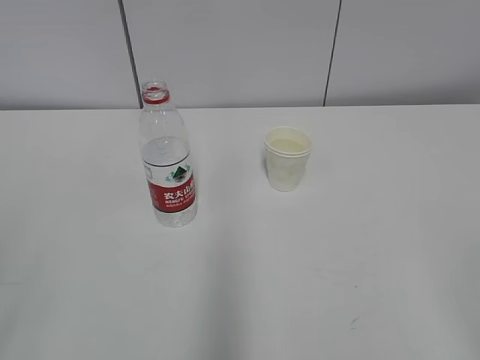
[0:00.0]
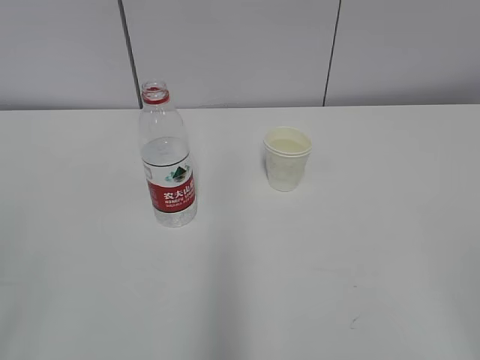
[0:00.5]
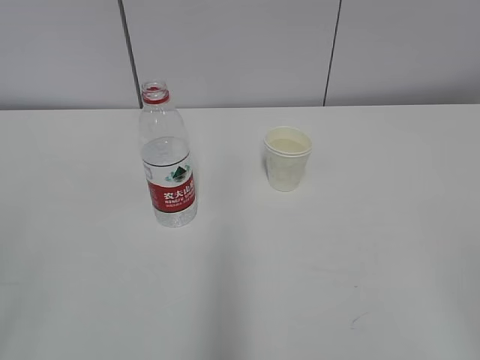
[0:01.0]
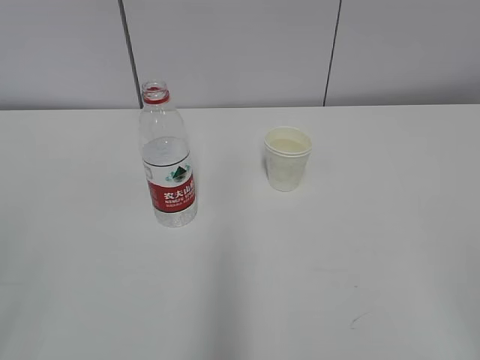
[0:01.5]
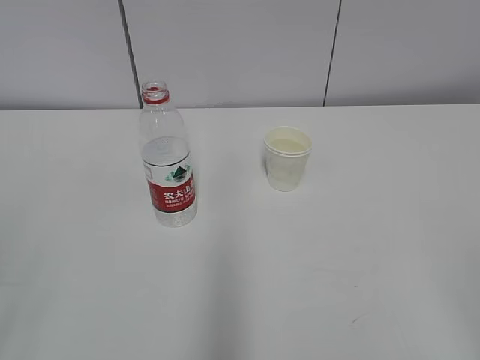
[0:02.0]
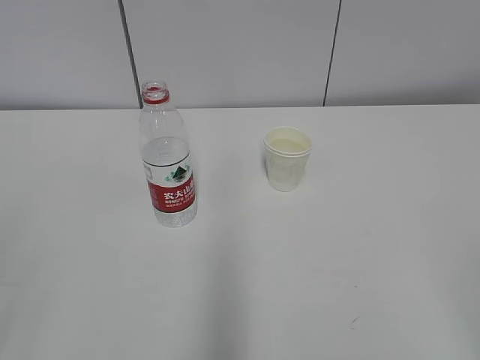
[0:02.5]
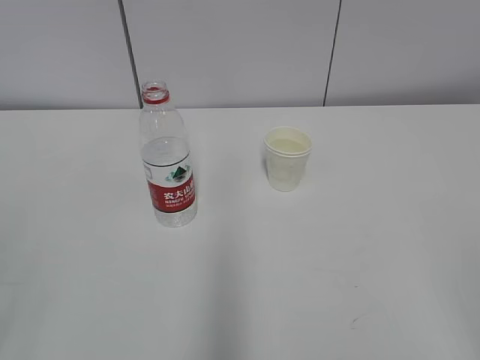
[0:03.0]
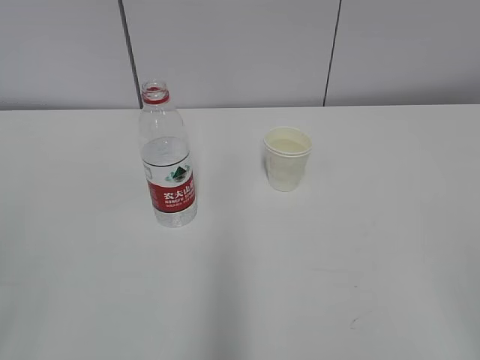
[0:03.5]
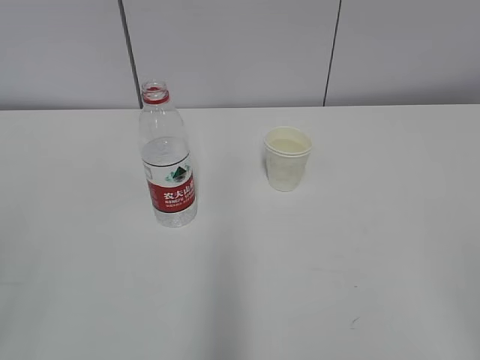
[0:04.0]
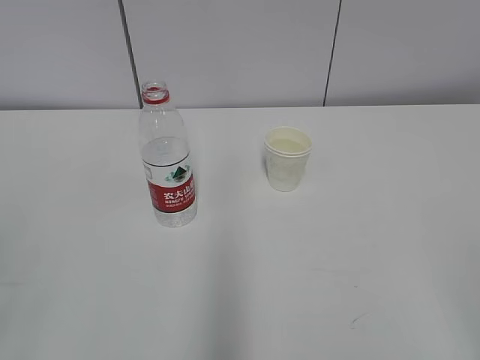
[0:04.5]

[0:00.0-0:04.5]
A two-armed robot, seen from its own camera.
0:00.0 to 0:04.5: The two grippers keep their place.

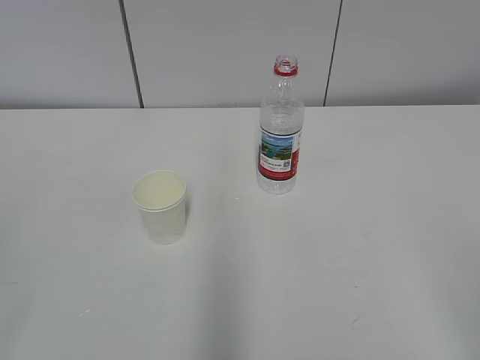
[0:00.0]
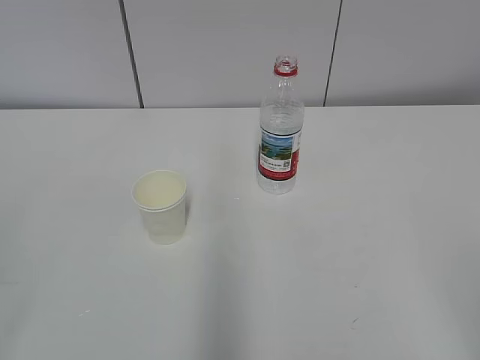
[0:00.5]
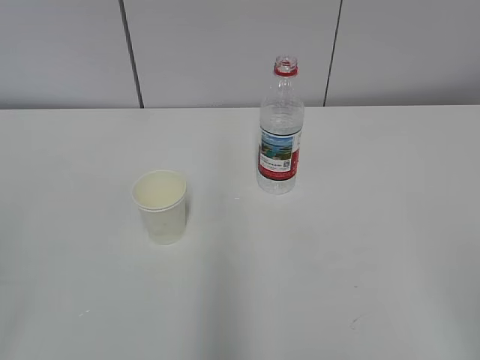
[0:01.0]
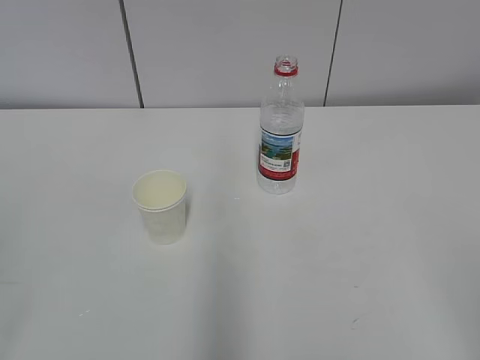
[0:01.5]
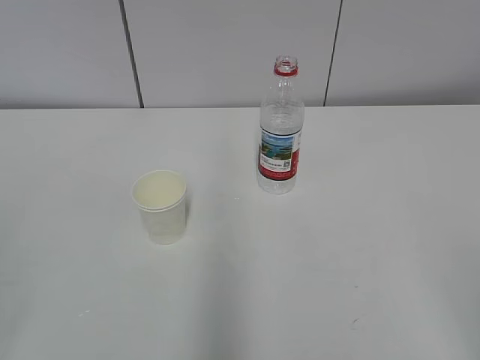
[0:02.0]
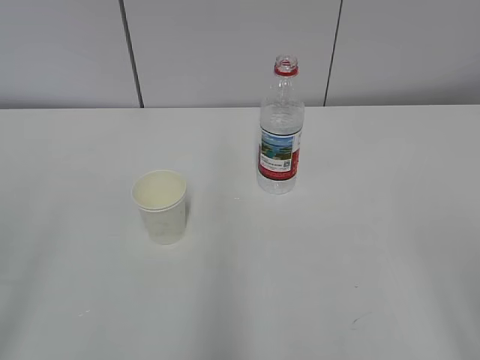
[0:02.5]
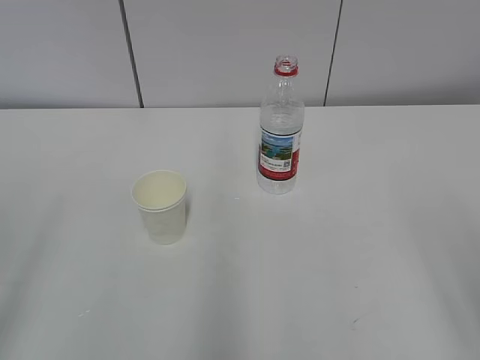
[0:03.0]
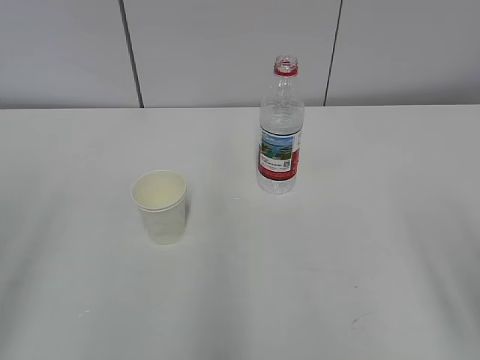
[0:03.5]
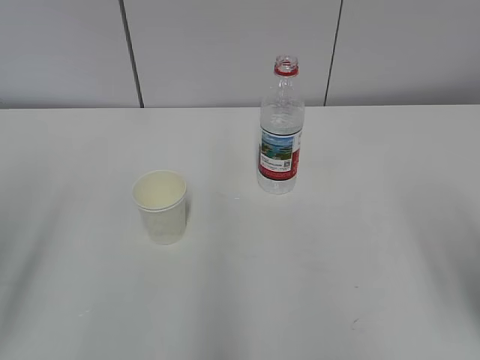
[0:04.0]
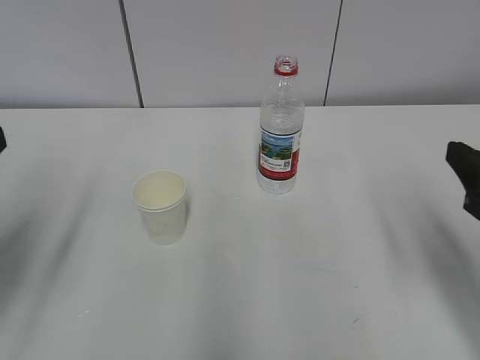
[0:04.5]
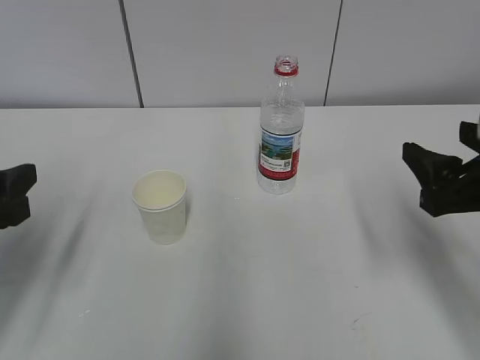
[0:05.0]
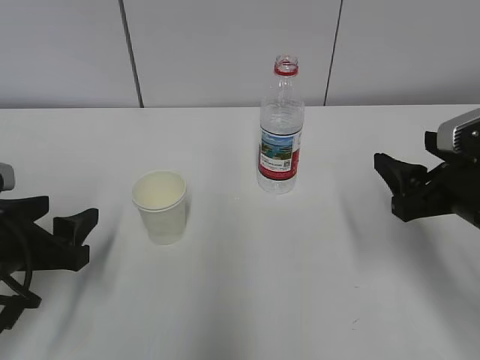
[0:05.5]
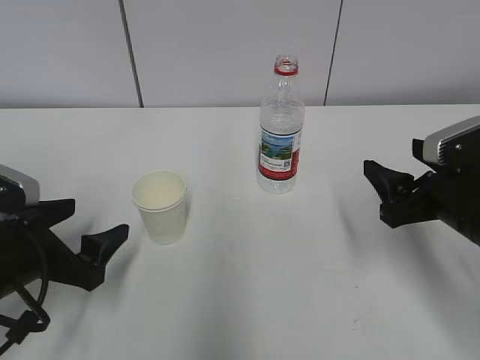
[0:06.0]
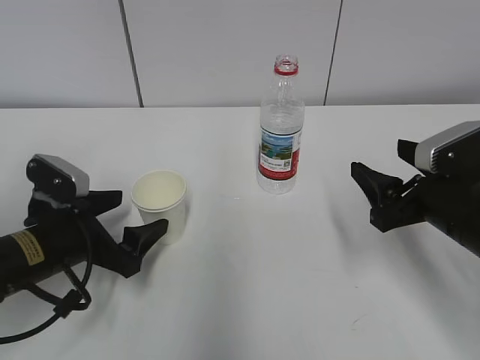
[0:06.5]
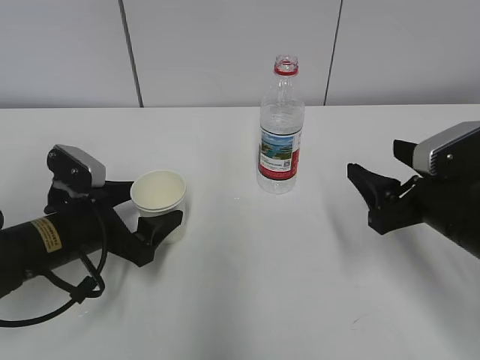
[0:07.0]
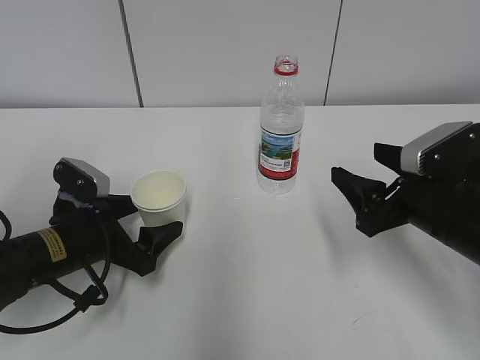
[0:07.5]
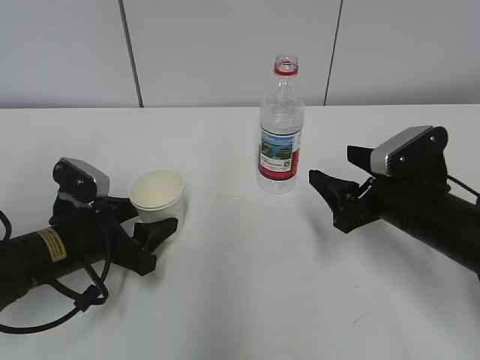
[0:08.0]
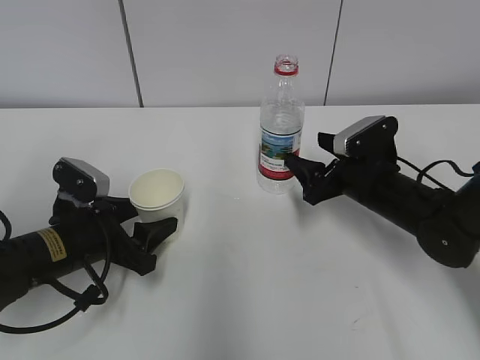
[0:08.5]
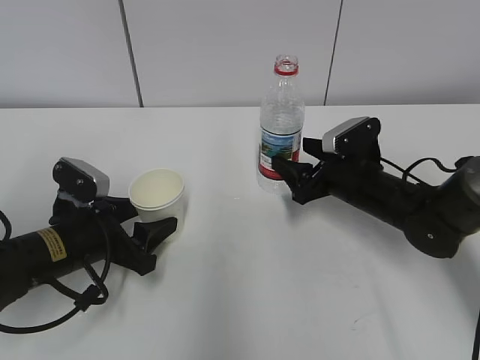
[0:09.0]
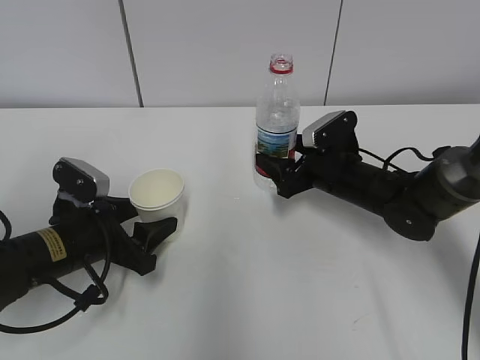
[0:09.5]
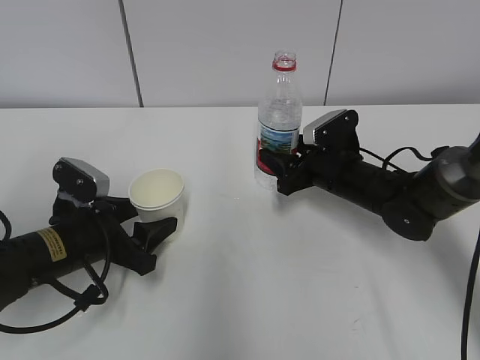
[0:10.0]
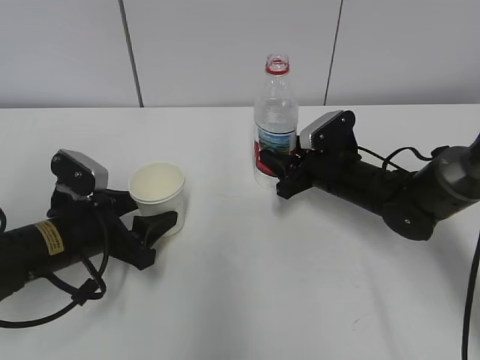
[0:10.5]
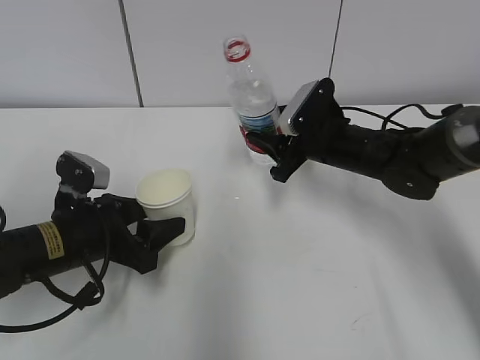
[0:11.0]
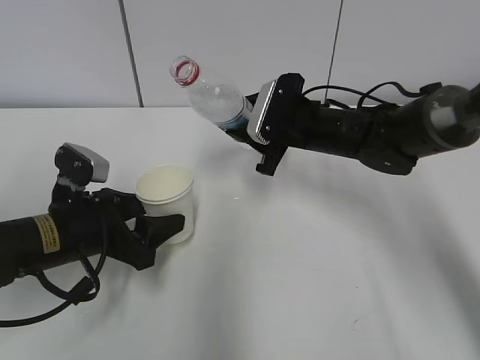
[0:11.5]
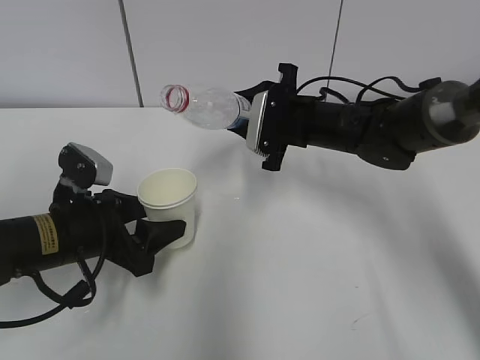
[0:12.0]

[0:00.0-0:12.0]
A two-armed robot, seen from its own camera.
Step, 0:00.0 to 0:08.5: Grab the paper cup with the left hand.
Step, 0:09.0 to 0:11.0: Lift the paper cup with the left hand.
0:04.0 to 0:06.0: The right gripper moves forward and downward, about 15 cm. The left gripper shifts approximately 20 cm downward, forward and to the right.
0:06.0 to 0:08.0: The left gripper travels forward by some 5 cm, and closes its fingers, while the right gripper ends up some 5 cm from where it was.
0:08.0 to 0:10.0: The right gripper is displaced forward by some 10 cm, and closes its fingers.
0:10.0 to 0:12.0: The right gripper shifts some 10 cm upward.

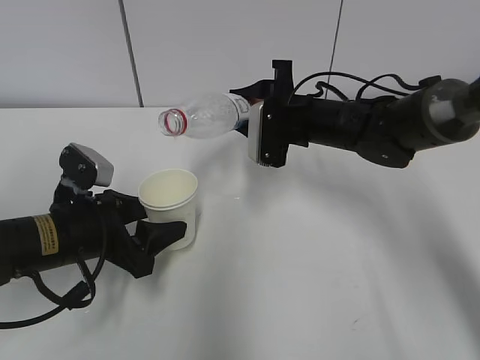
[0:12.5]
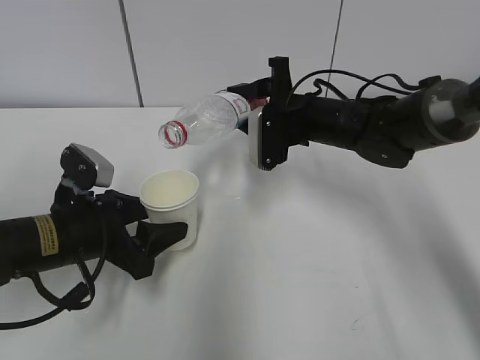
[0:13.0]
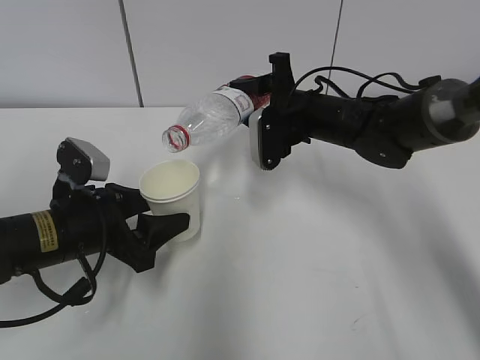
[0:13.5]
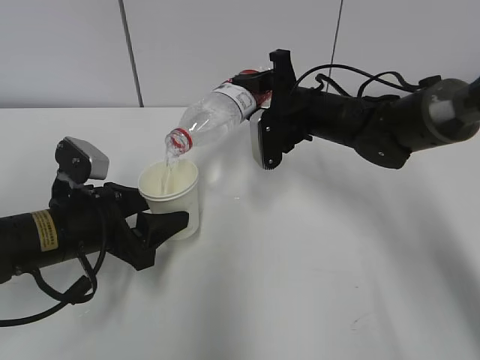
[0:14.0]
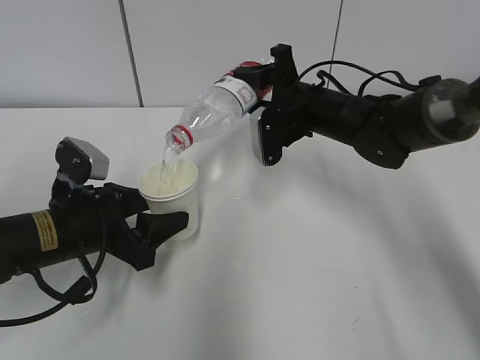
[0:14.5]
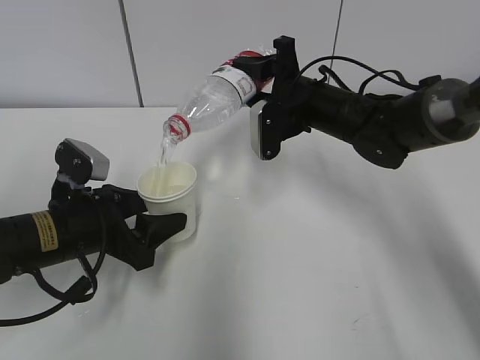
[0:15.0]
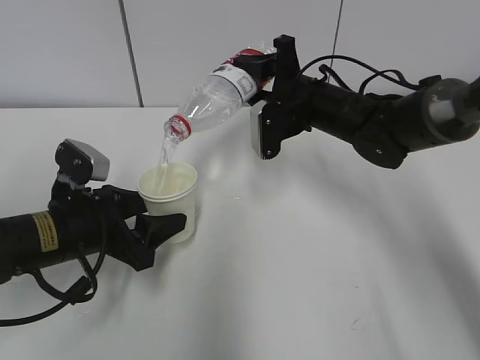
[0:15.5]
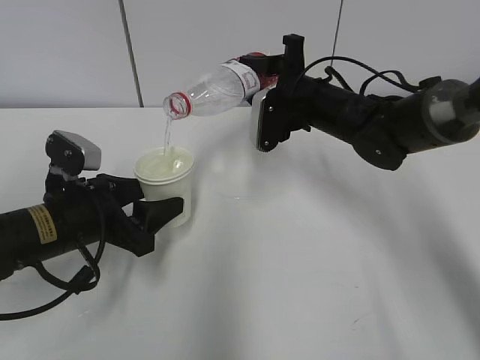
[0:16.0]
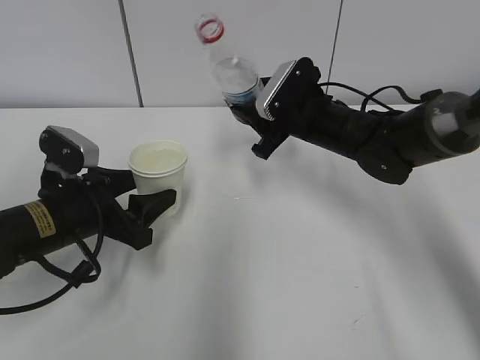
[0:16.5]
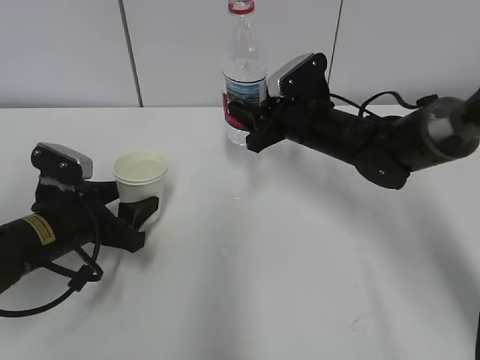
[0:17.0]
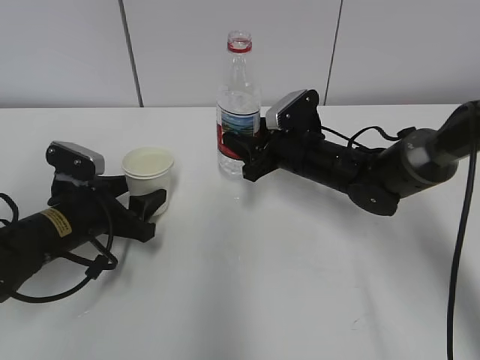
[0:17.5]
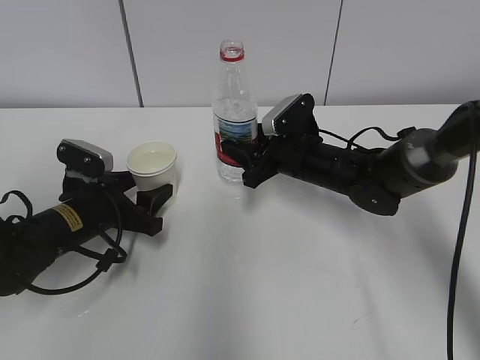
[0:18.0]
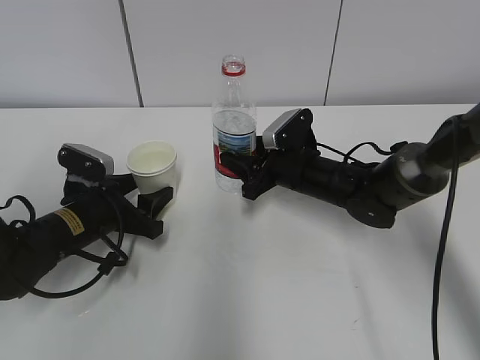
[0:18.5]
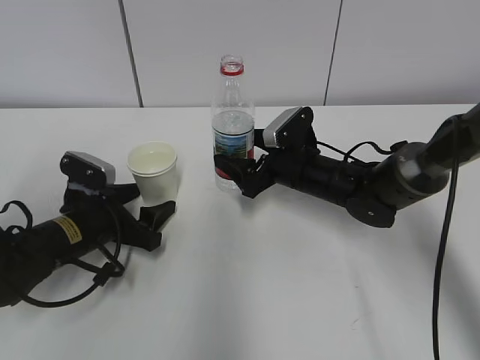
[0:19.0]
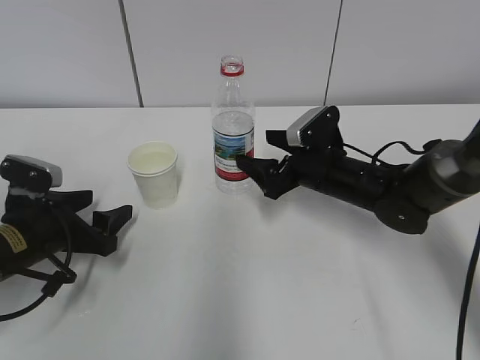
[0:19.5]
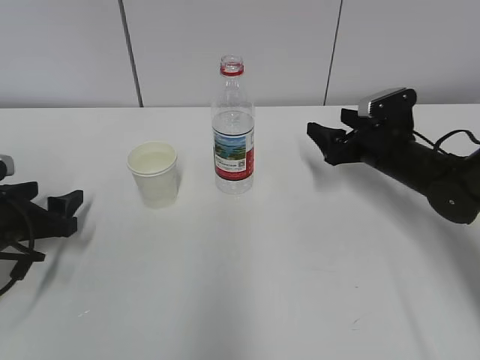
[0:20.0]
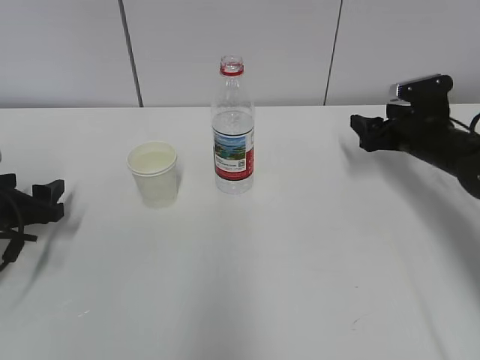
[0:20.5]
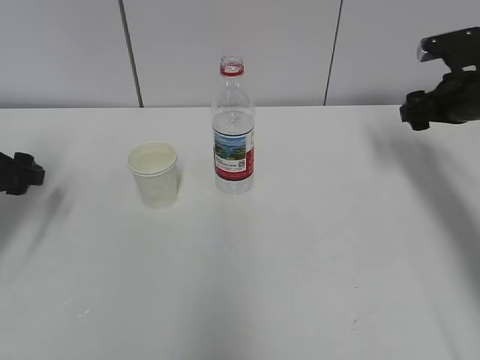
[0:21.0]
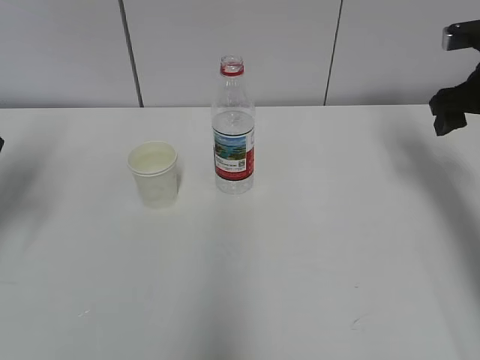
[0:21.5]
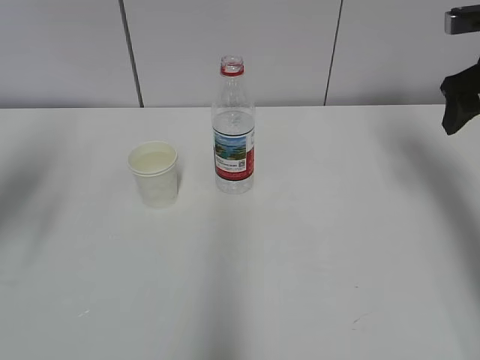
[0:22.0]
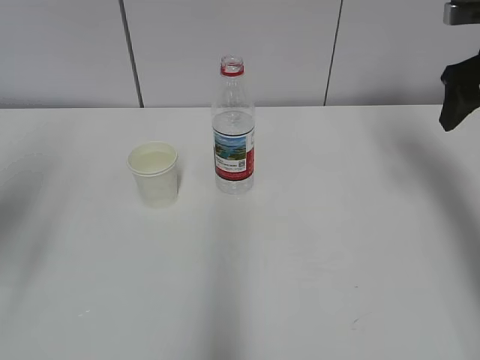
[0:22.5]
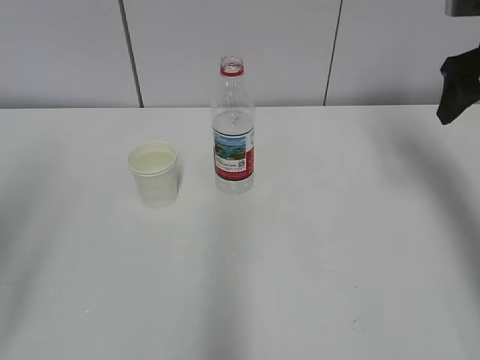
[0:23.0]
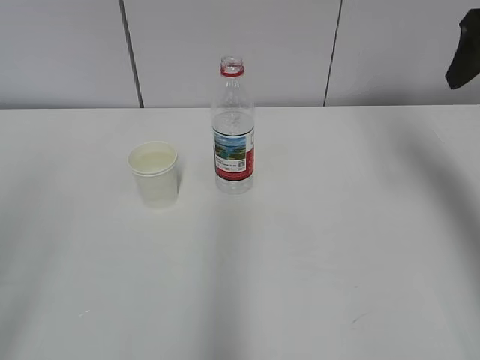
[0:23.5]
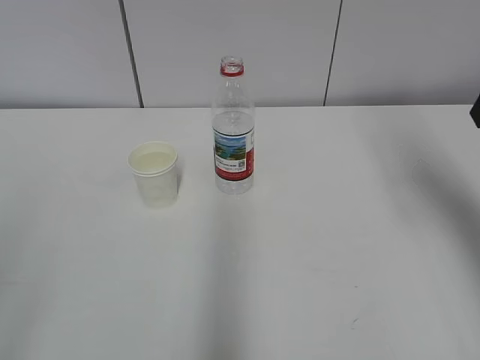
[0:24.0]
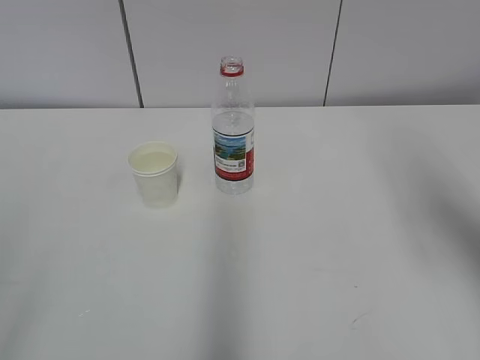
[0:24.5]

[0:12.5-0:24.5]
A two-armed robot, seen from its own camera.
Step, 0:13.5 to 0:14.0: Collect water with the right hand.
Step, 0:14.5 to 0:15.0: Place the paper cup with the left hand.
0:16.5 to 0:18.5: The two grippers go approximately 5 cm downward.
0:18.5 to 0:20.5: The left gripper moves to the left, roughly 10 cm, while the right gripper heads to the right, covering some 15 cm, and opens up.
0:20.5 to 0:22.5: The two grippers go approximately 20 cm upward.
0:22.5 to 0:24.5: Both grippers travel together backward, approximately 20 cm.
